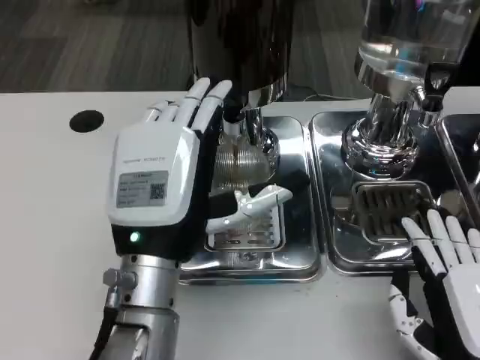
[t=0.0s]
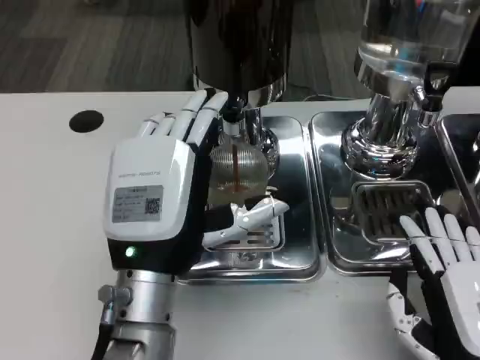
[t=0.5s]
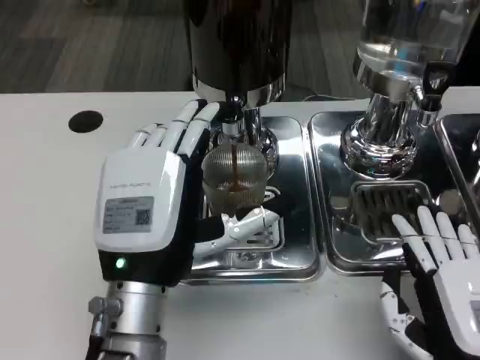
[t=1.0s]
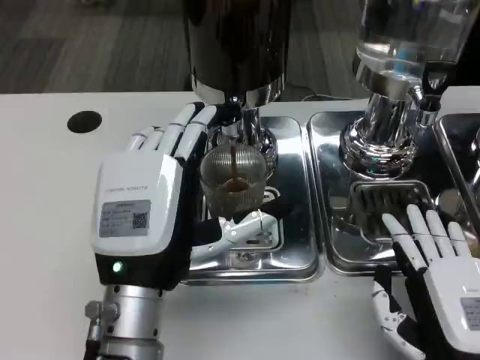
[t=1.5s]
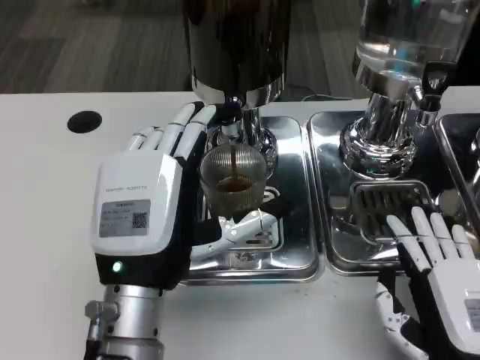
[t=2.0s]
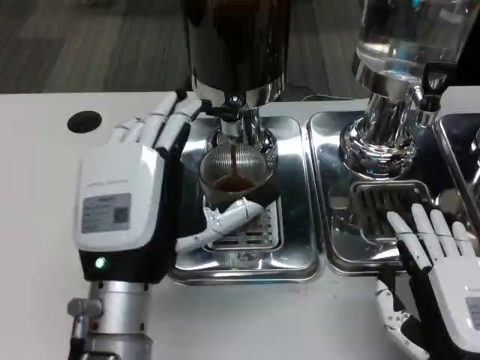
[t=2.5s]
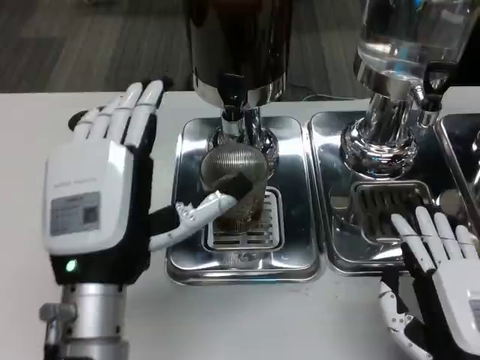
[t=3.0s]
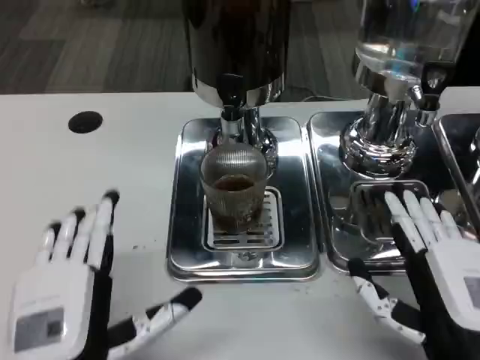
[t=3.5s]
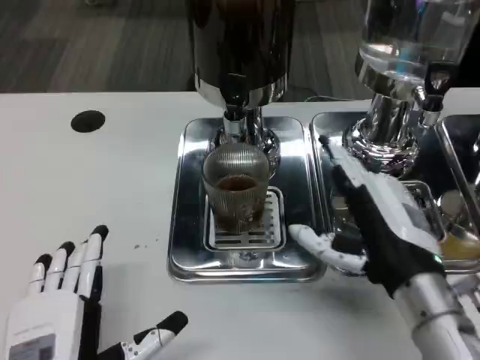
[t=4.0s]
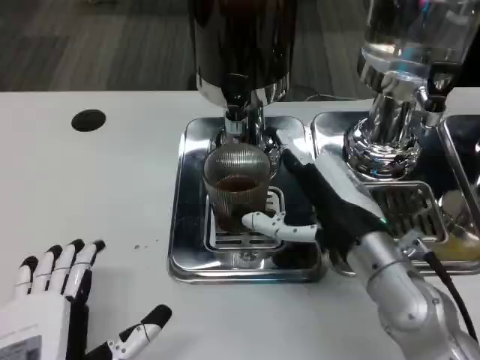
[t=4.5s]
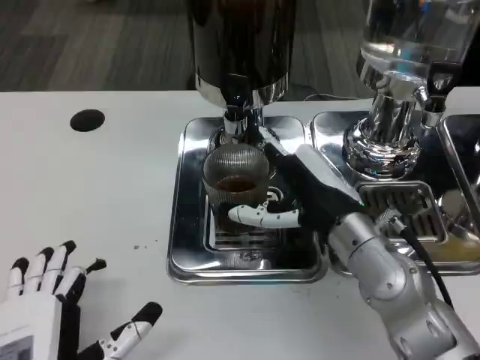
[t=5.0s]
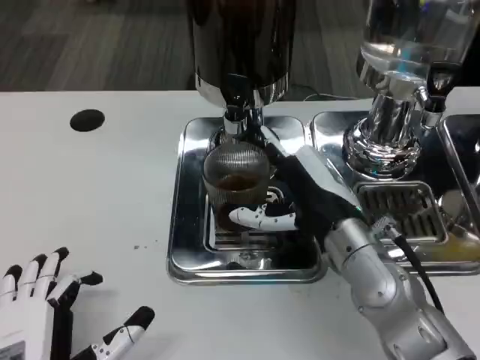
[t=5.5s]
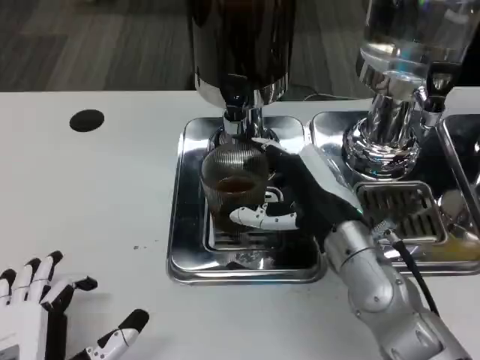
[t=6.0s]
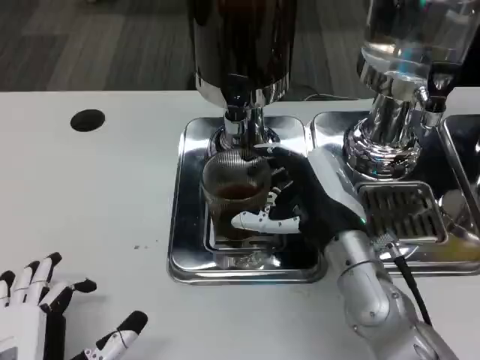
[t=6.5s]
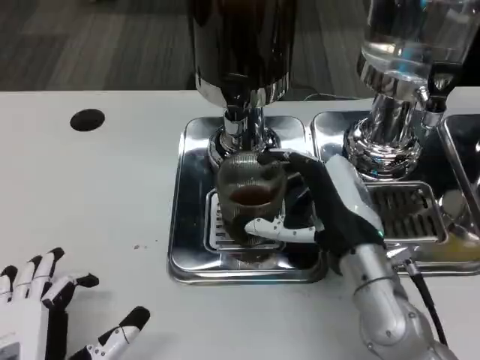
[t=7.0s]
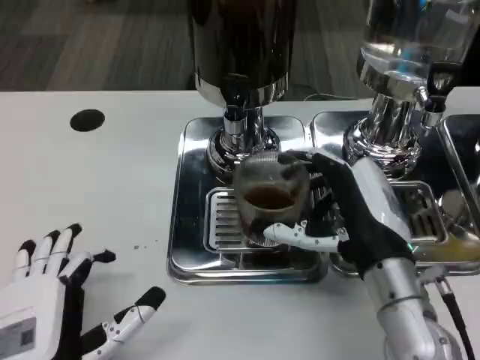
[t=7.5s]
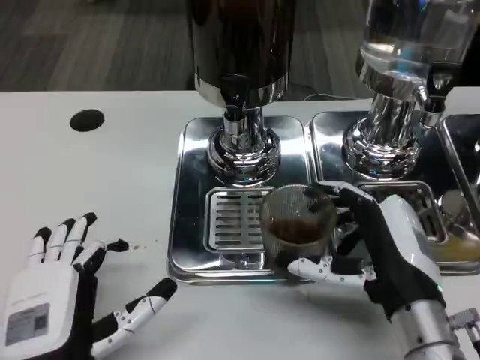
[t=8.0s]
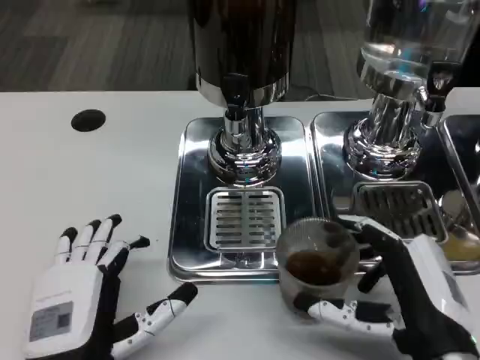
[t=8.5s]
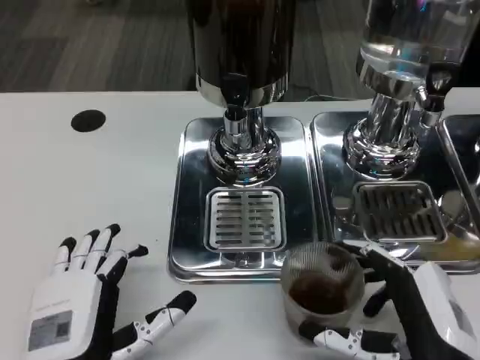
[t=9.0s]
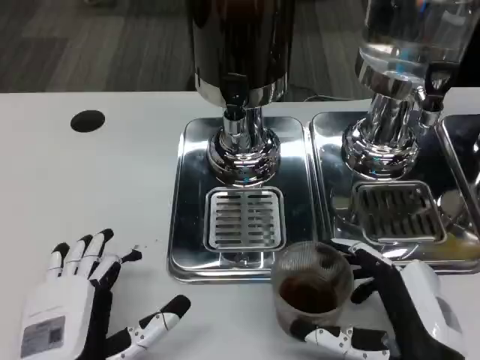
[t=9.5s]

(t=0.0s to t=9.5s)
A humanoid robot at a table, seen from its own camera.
Task of the whole recording: Grasp the cup under the faucet to collect the drink, then remove the cup.
t=2.0s - t=4.0s: The left hand goes roughly 15 cm backward, downward and to the left, while the right hand shifts about 10 cm forward and upward.
t=4.0s - t=5.5s: The right hand goes some 5 cm forward.
t=5.5s - t=7.5s: The right hand shifts roughly 5 cm backward.
t=7.5s - t=9.5s: The right hand is displaced backward by some 10 cm.

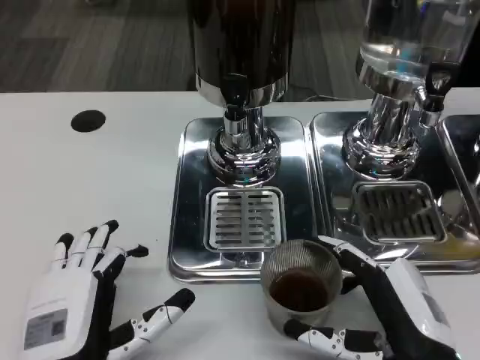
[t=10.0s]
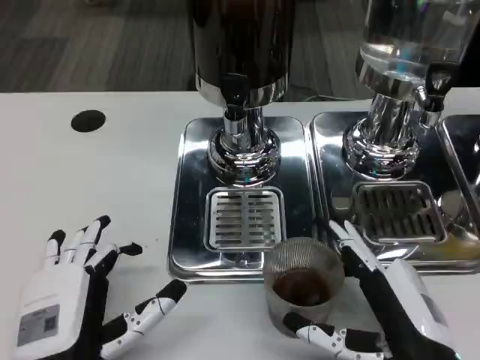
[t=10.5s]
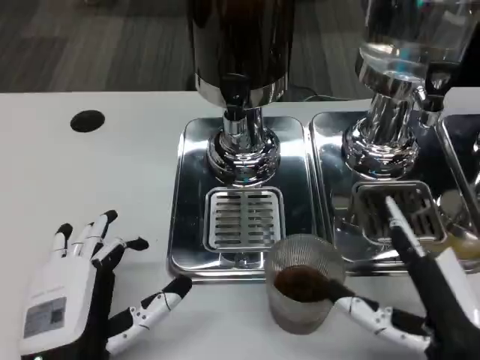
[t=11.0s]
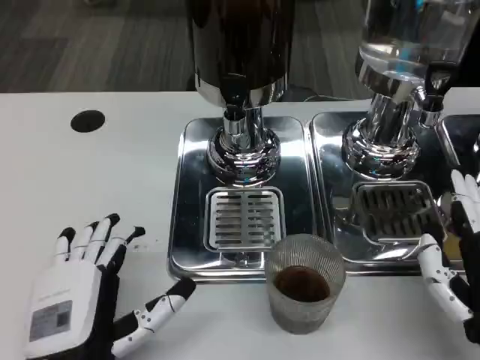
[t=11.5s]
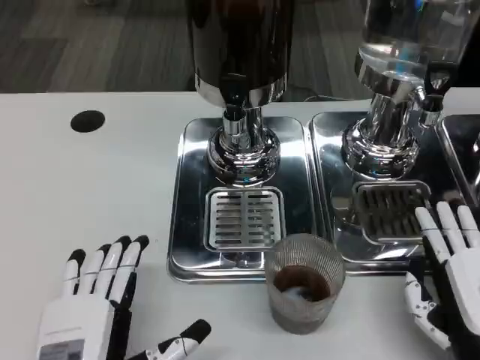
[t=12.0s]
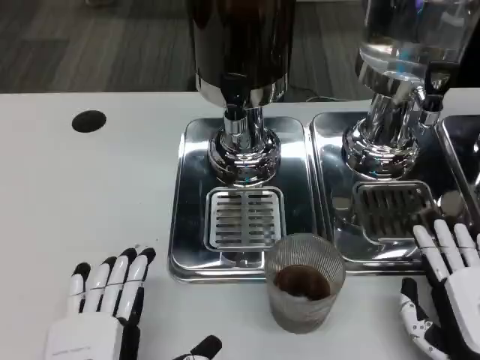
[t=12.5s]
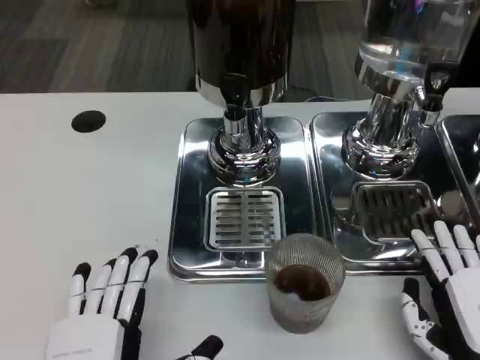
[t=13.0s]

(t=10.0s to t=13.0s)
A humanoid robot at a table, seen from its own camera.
Task of the whole recording: Grasp the cup under the faucet to collect the drink, then remove the cup.
t=11.5s - t=13.0s: The left hand goes approximately 5 cm backward. Meanwhile the right hand goes some 5 cm downward.

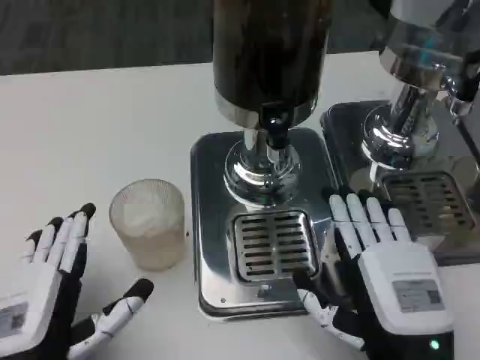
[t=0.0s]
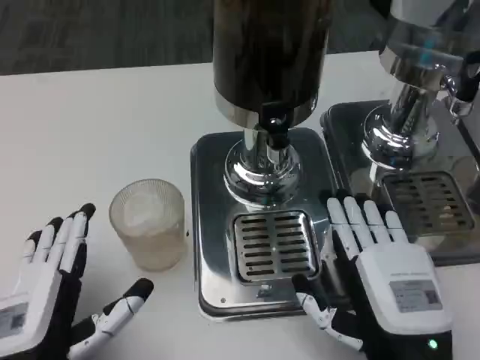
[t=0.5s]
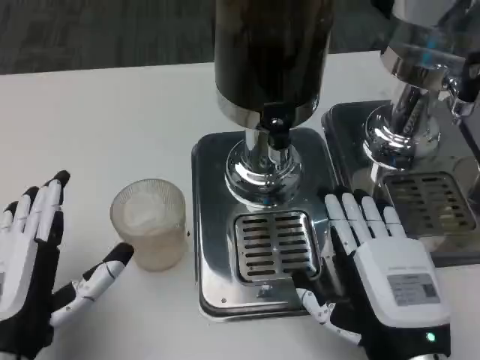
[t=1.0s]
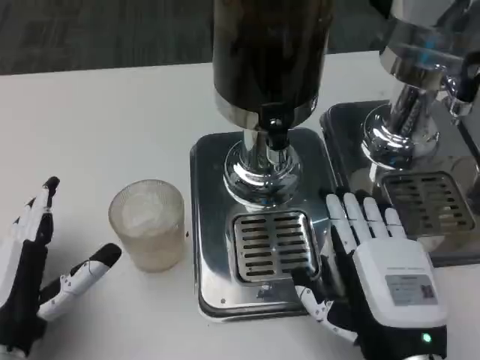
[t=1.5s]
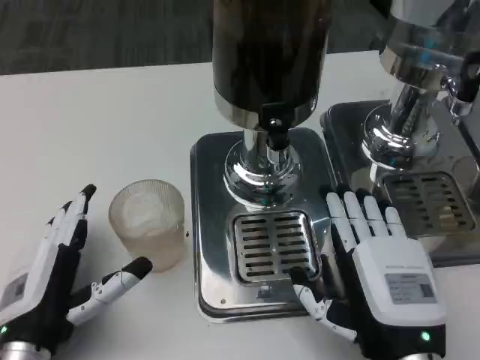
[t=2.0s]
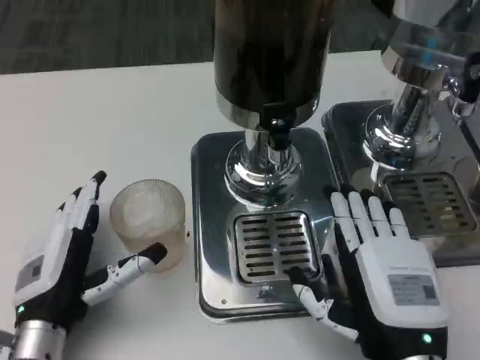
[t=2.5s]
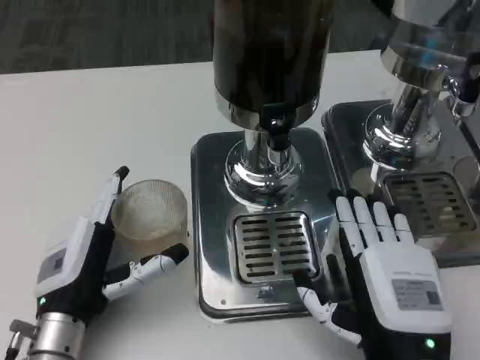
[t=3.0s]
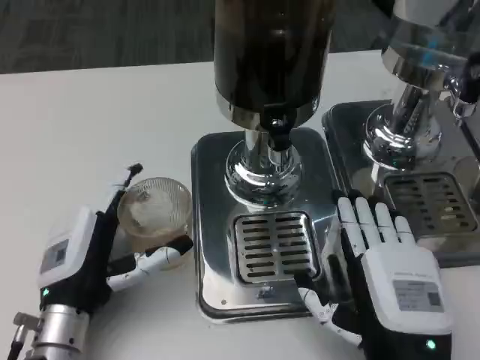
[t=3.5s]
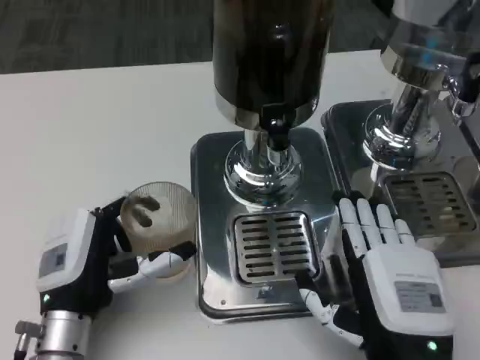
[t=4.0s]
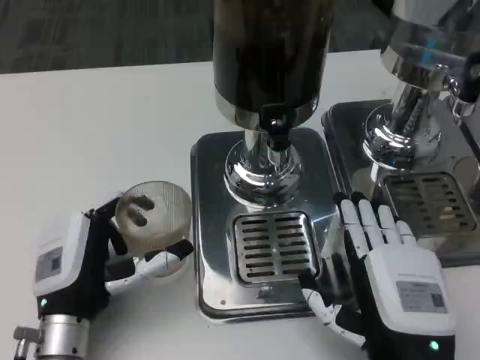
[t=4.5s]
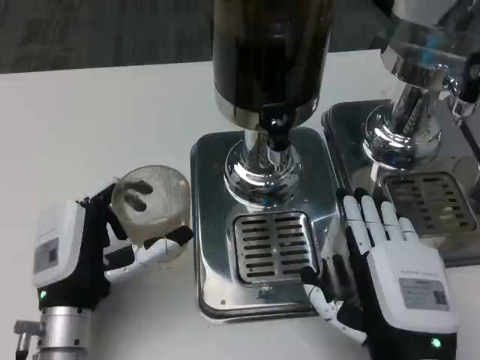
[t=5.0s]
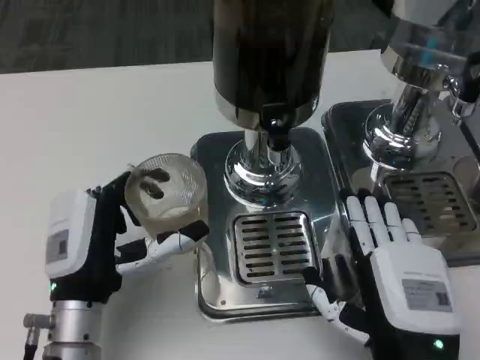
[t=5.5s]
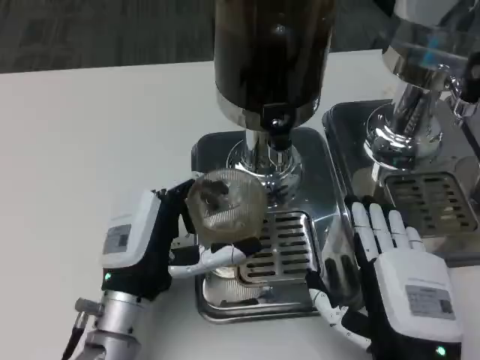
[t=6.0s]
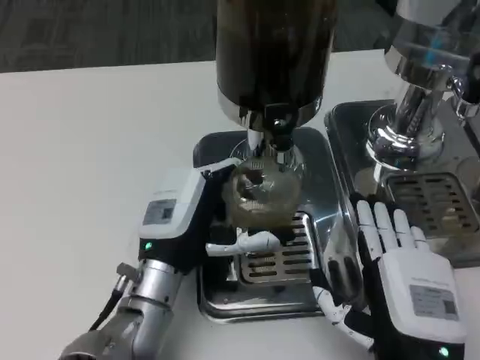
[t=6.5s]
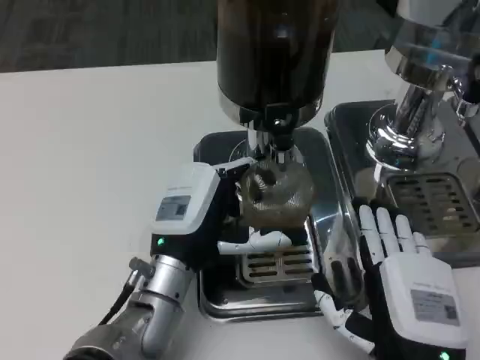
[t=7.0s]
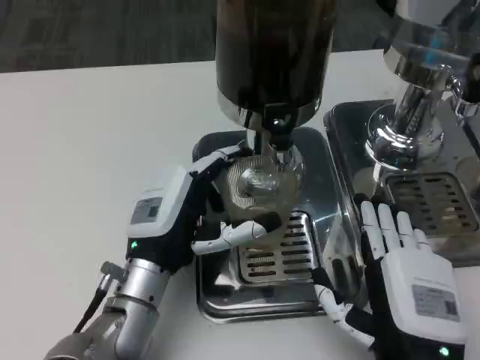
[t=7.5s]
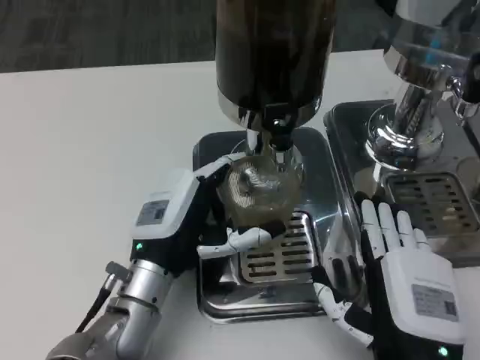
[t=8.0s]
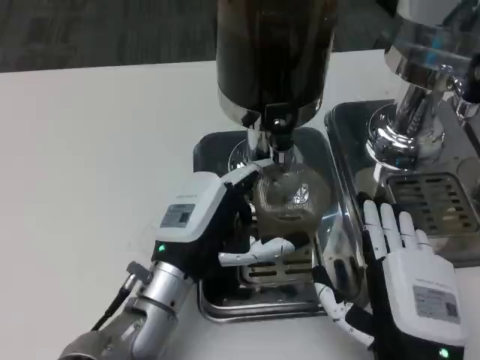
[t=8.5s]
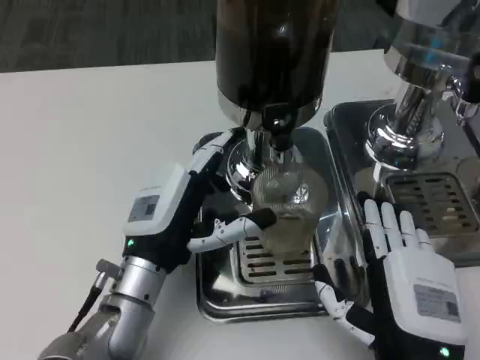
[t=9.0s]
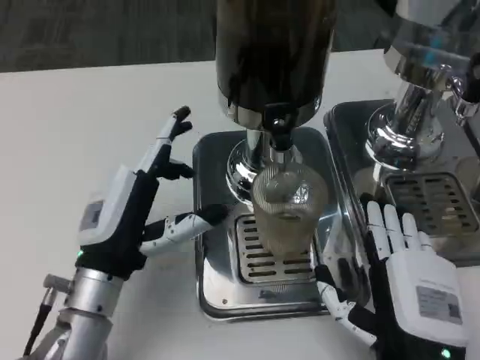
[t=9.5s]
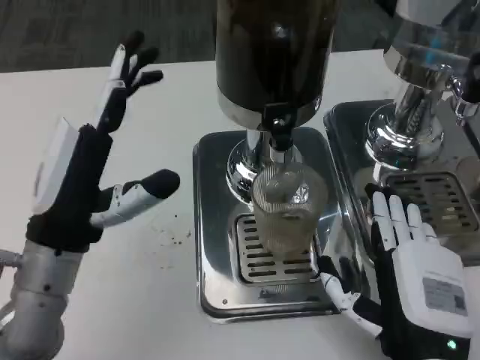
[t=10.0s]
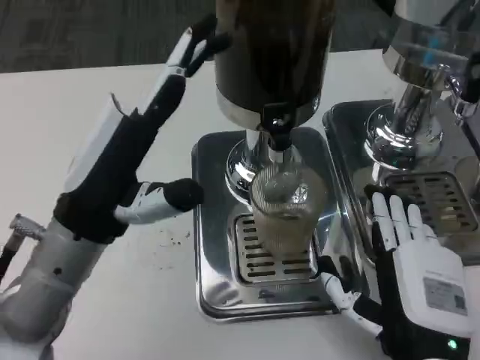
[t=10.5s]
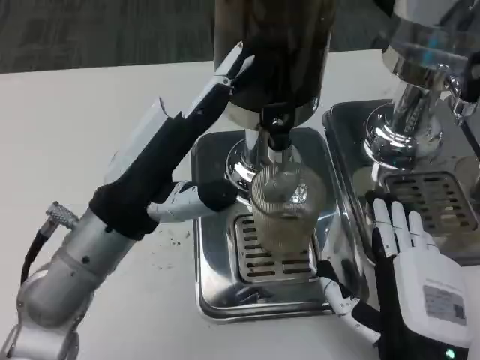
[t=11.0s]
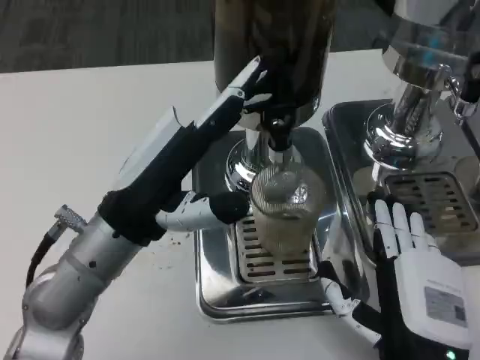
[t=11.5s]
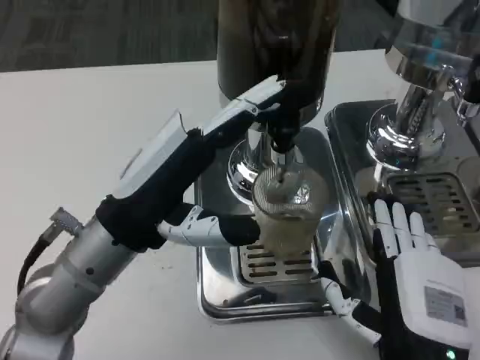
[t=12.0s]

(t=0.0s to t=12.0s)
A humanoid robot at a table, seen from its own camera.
Task of the whole recording: Grasp the cup under the faucet to collect the drink, then remove the cup.
t=0.0s - t=2.0s: The left hand changes place by some 5 cm.
t=2.0s - t=4.0s: The hands make only small movements.
t=4.0s - t=6.0s: The left hand moves to the right, about 5 cm.
t=6.0s - t=8.0s: The hands stay close to where they were, moving slightly.
t=8.0s - t=10.0s: The left hand shifts approximately 10 cm upward and to the left.

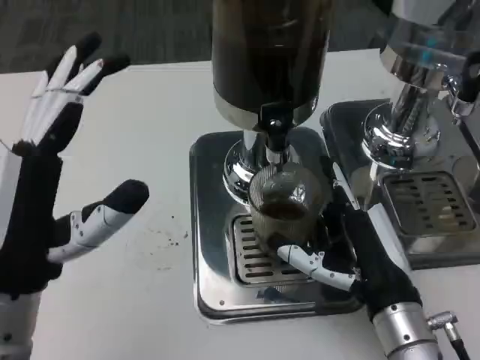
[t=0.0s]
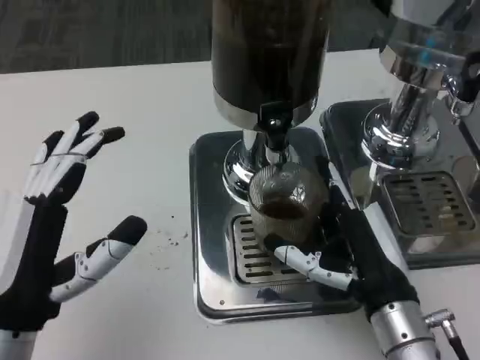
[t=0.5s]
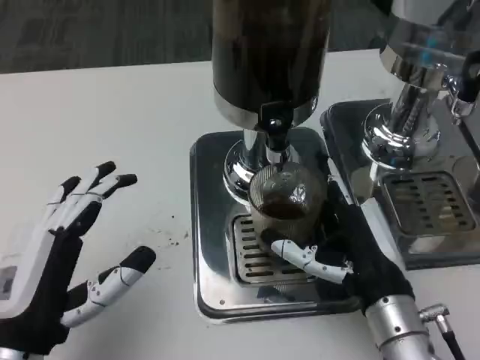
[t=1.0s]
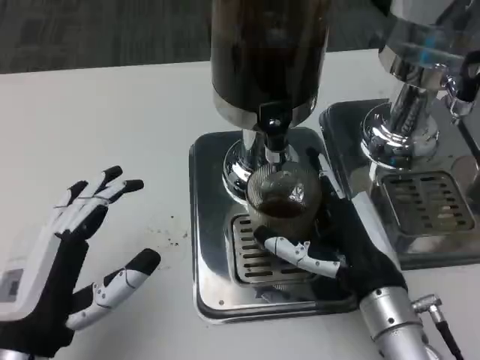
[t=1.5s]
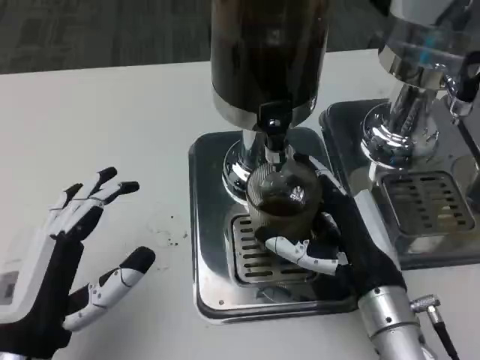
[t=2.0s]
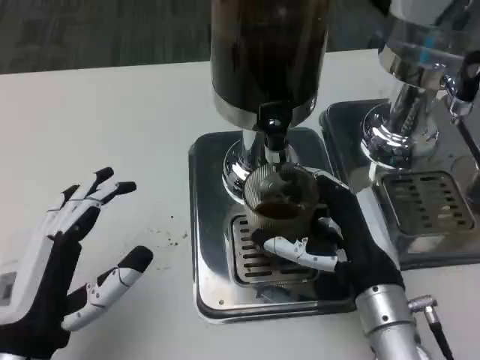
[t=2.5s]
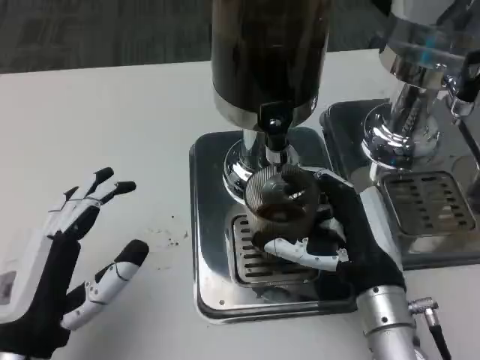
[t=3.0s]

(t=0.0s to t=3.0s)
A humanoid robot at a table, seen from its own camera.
Task of the whole recording: Grasp the cup under the faucet to collect the drink, then remove the cup.
t=0.0s - t=1.5s: The left hand heads downward, covering about 5 cm.
t=1.5s - t=3.0s: There are only small adjustments of the hands.
